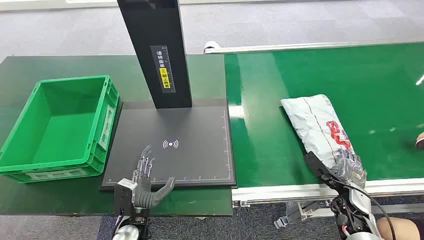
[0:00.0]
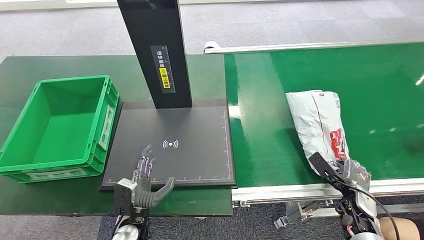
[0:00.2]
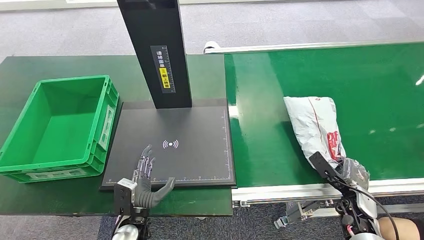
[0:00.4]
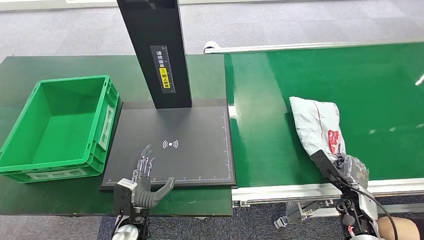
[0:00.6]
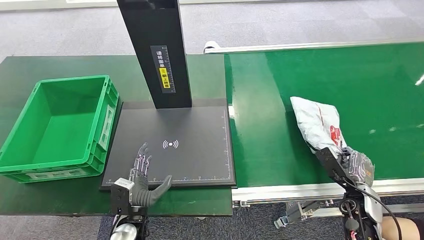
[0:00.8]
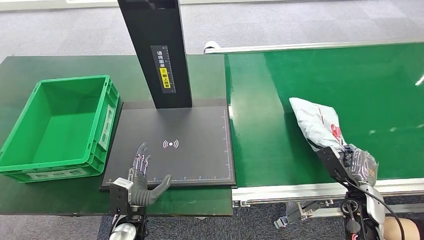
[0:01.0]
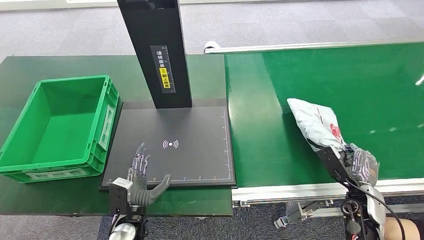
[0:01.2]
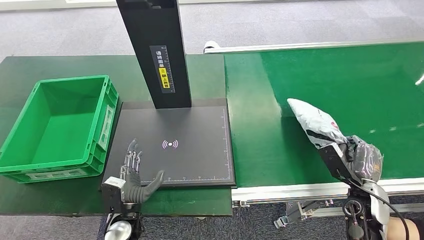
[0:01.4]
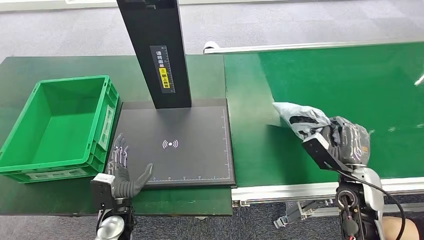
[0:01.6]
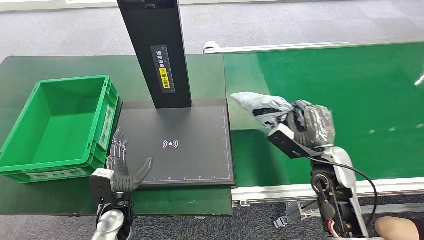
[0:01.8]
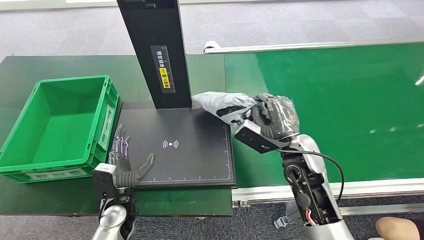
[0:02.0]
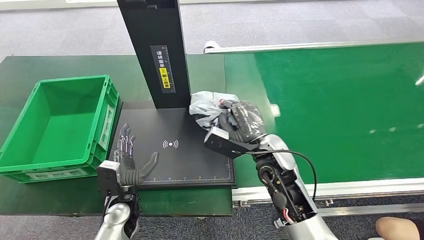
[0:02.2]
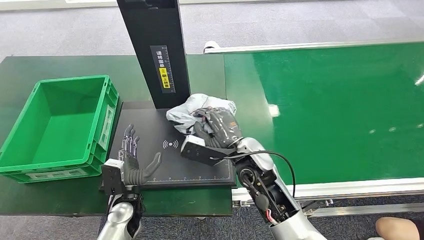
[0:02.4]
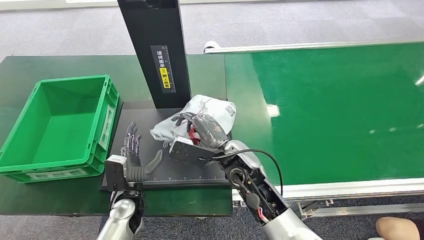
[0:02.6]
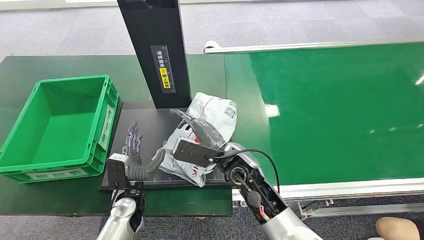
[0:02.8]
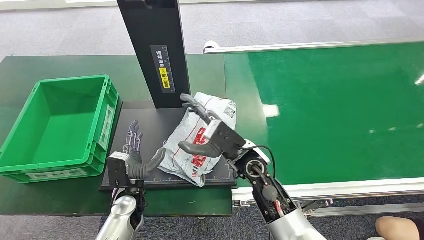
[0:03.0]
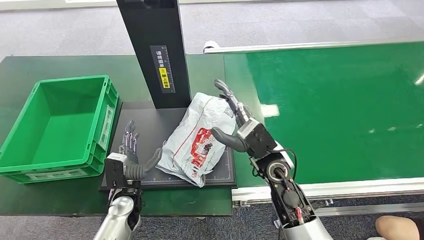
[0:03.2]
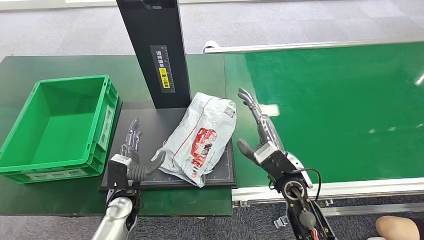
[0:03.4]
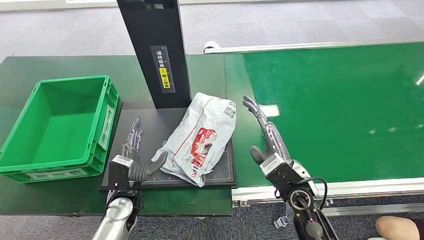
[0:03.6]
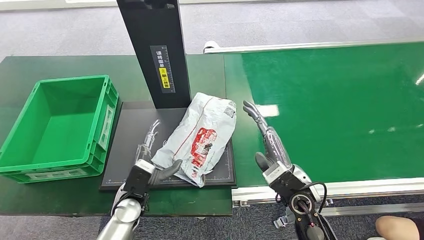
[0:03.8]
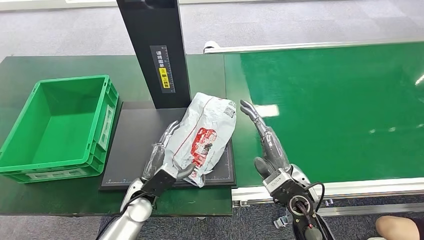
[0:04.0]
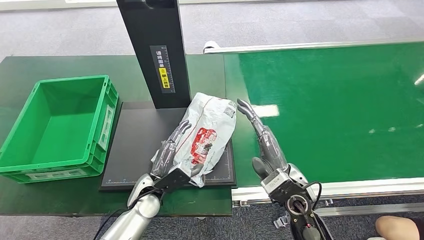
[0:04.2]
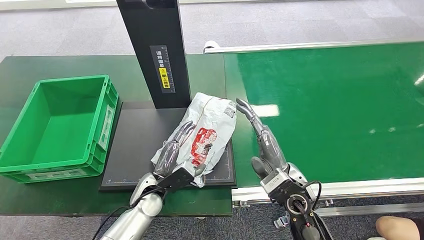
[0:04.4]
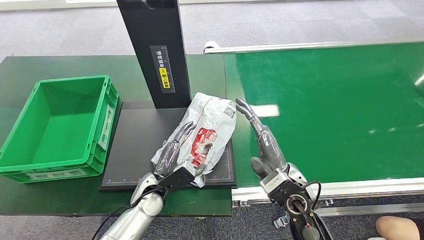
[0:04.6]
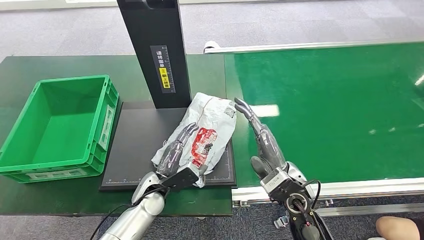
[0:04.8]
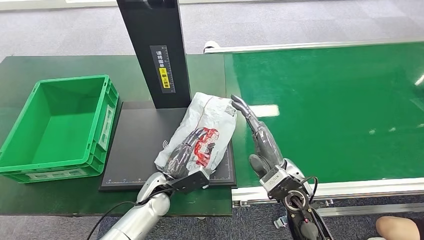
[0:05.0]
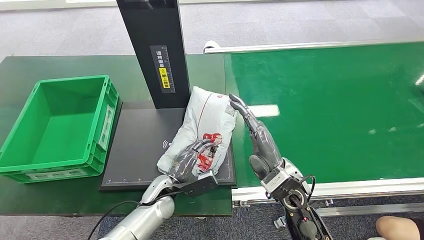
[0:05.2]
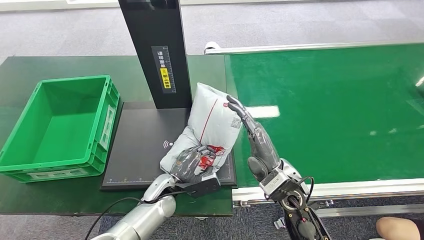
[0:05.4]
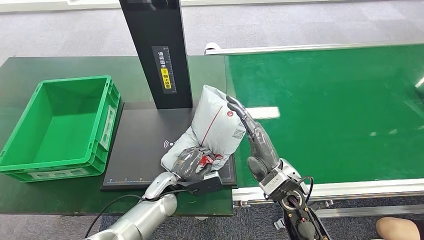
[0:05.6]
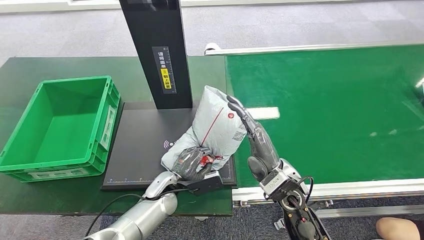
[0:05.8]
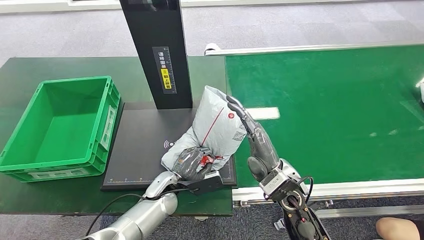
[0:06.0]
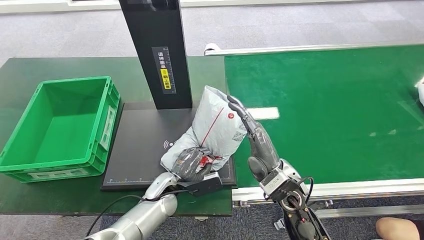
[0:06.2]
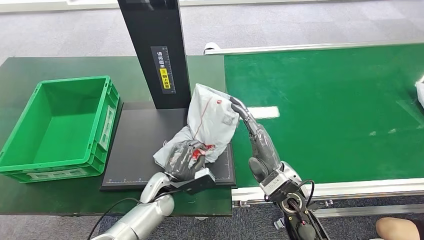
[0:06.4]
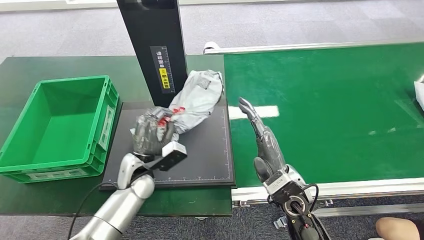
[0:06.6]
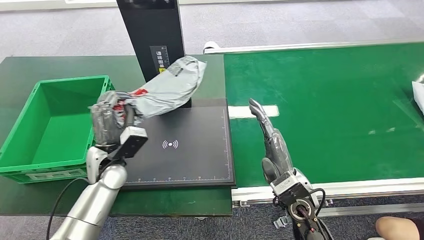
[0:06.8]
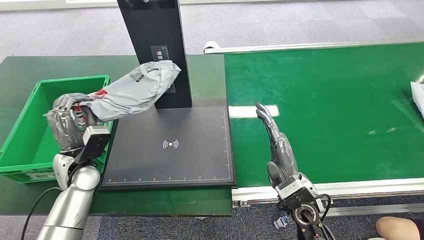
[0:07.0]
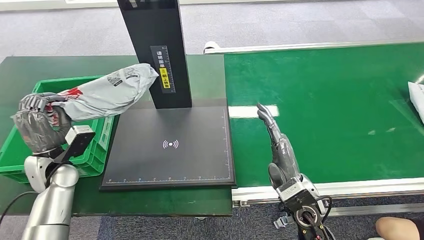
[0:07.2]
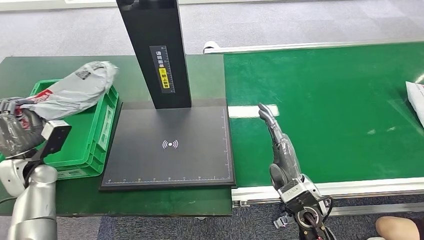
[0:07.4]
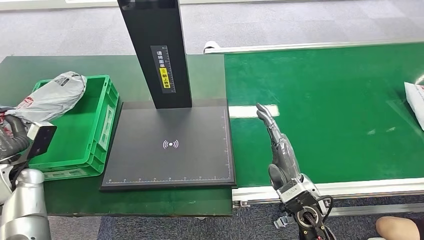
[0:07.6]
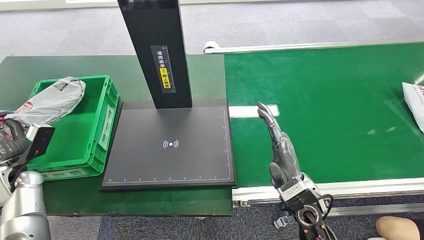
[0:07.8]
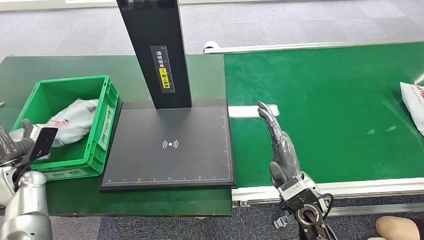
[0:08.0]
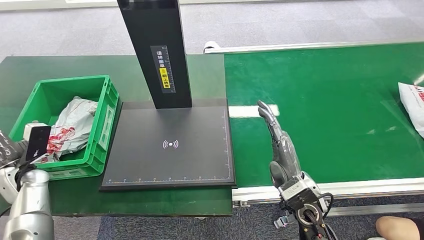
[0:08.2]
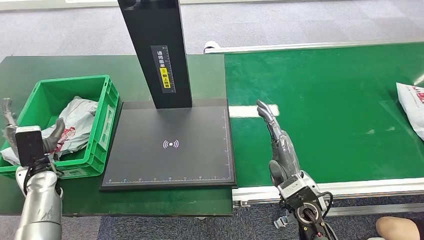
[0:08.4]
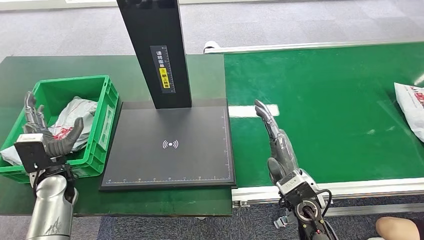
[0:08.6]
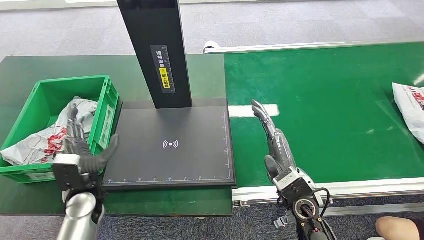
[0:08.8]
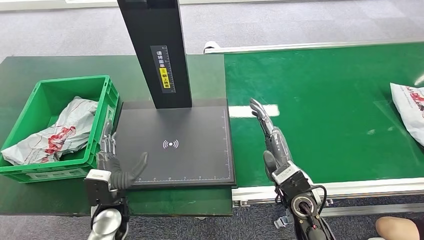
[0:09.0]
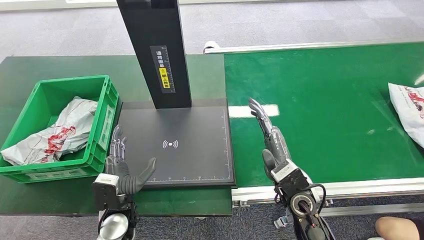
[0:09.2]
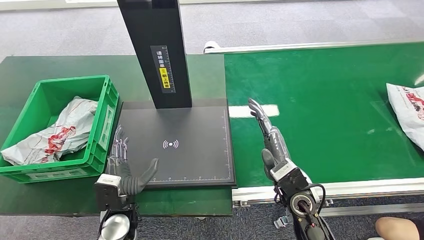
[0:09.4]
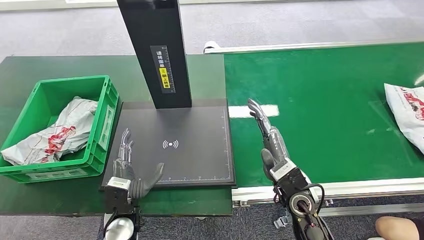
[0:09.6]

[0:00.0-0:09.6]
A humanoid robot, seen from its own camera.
Step, 0:00.0 to 0:01.6: Pick up the package from the conveyor belt.
Step, 0:01.8 to 0:03.4: Place the package onto the inbound machine.
Step, 0:03.6 to 0:07.2: Pick up the package from the inbound machine.
Step, 0:07.4 to 0:09.4: Place the package into the parcel locker.
0:03.2 to 0:04.8: The left hand travels to the right by some 5 cm. Meanwhile the right hand shifts approximately 5 cm backward.
0:08.0 to 0:09.6: The left hand goes about 30 cm to the right.
